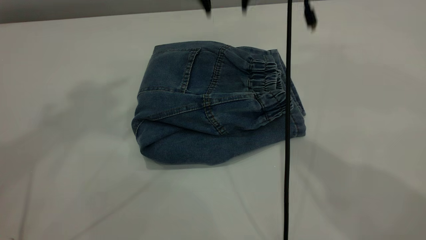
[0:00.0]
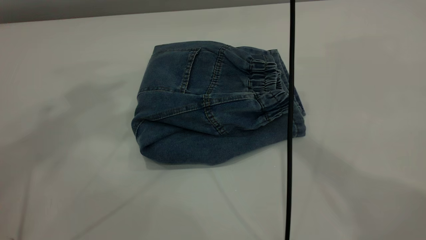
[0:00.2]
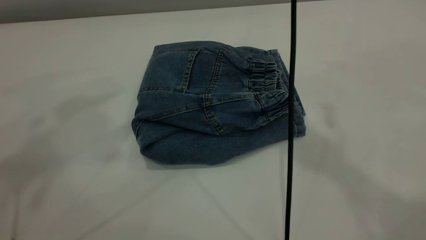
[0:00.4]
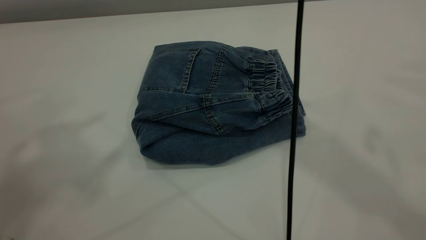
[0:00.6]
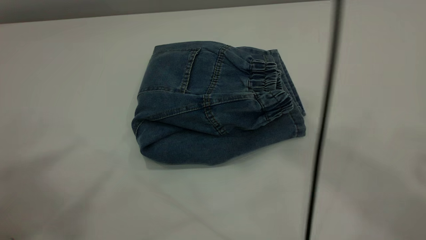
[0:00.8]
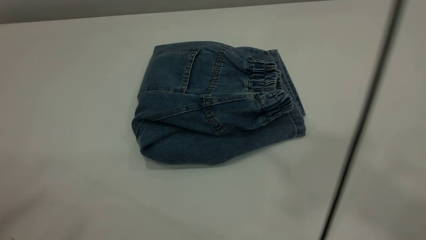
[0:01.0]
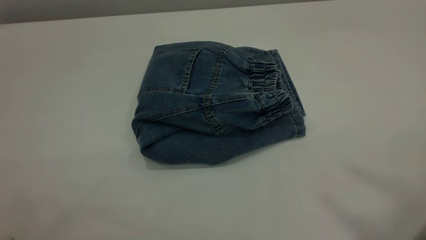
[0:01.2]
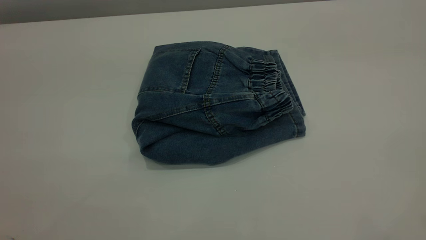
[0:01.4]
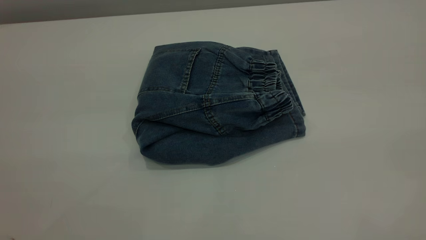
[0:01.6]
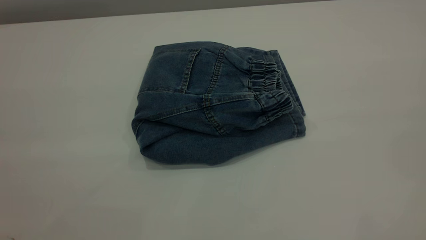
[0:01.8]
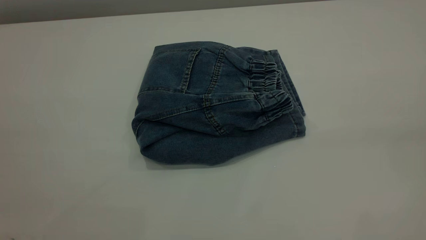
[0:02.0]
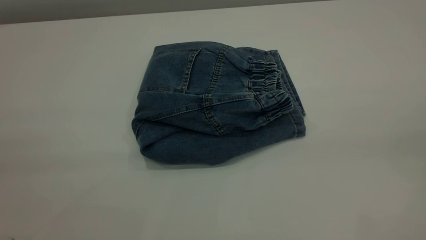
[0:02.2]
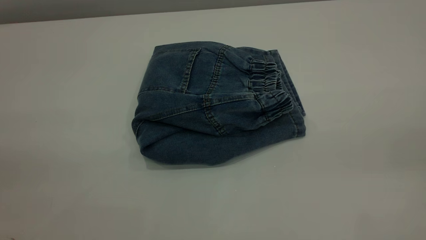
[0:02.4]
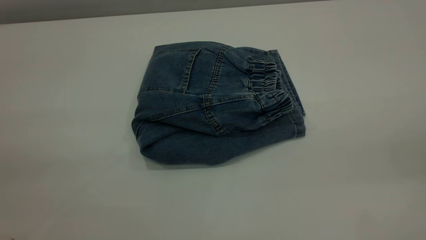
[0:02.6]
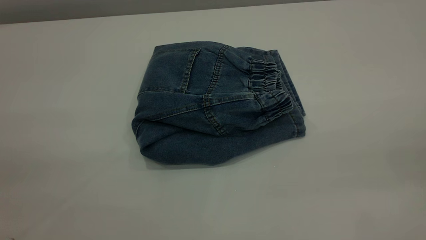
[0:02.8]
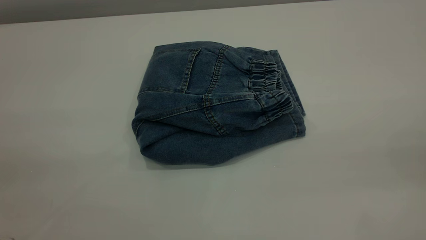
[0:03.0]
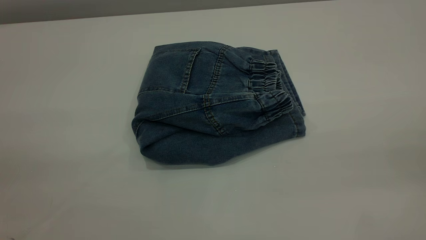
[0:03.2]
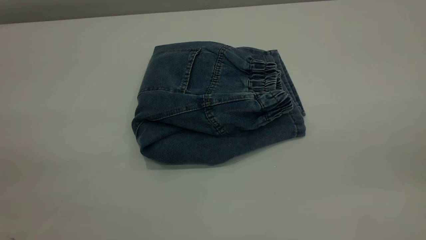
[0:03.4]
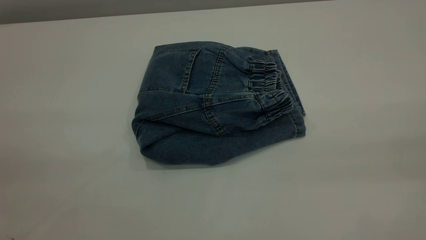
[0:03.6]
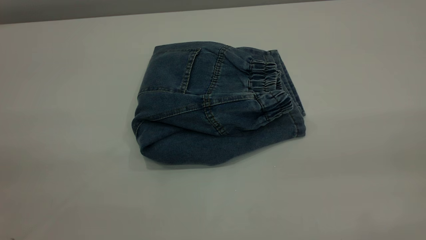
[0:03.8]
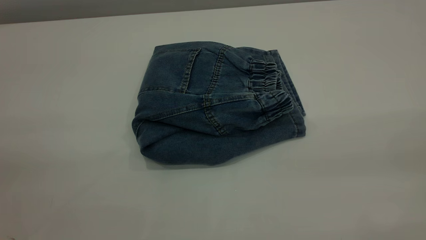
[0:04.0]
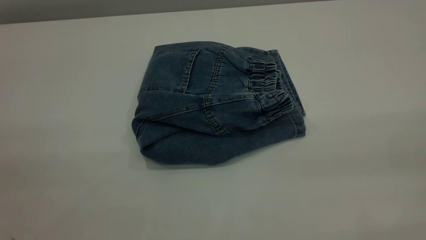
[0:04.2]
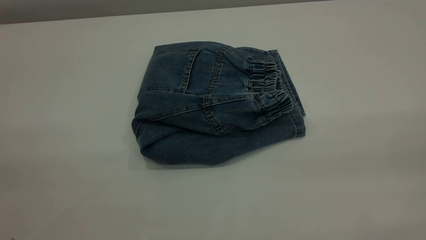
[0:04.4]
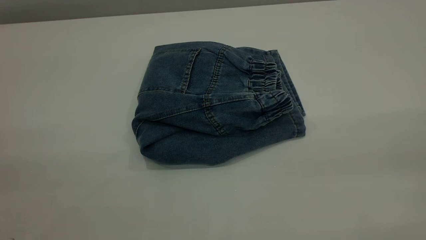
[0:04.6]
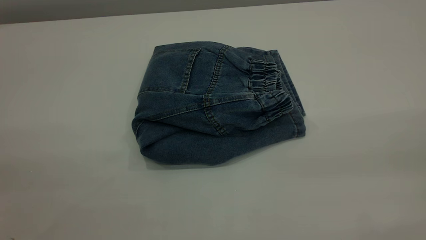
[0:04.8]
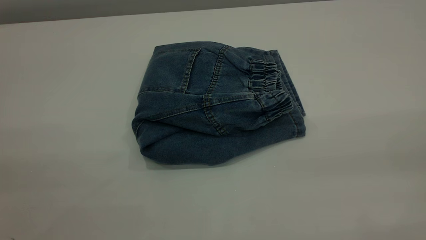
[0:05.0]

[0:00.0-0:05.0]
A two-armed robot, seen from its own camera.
0:00.0 to 0:01.6: The right gripper shifts about 60 cm backward, to the right and upward.
